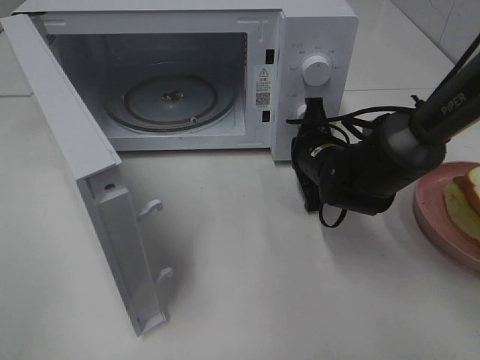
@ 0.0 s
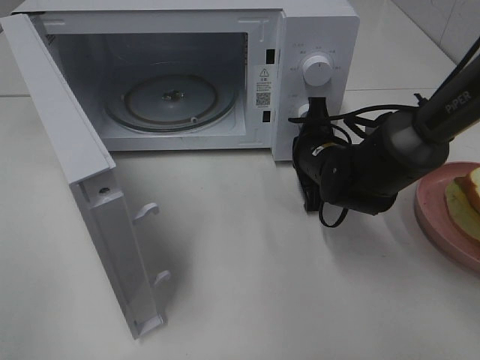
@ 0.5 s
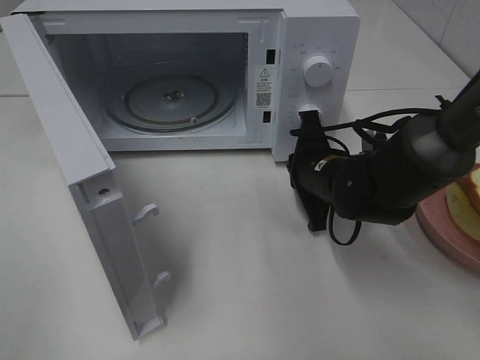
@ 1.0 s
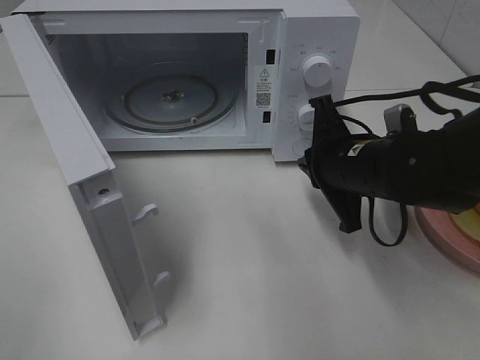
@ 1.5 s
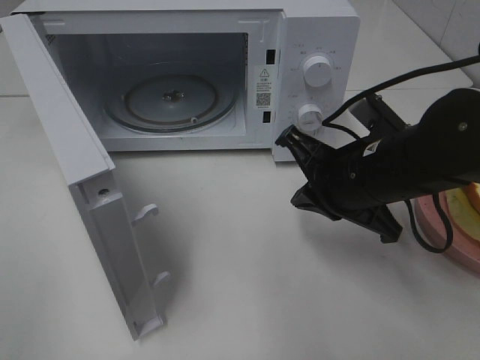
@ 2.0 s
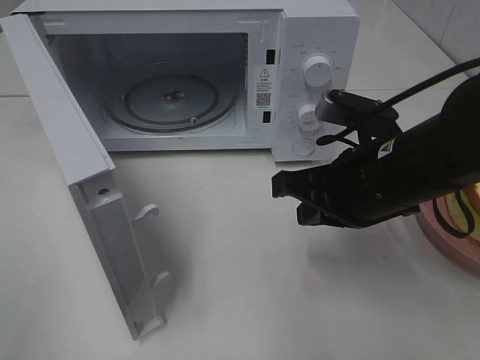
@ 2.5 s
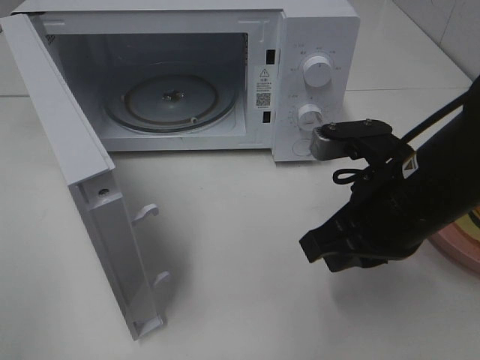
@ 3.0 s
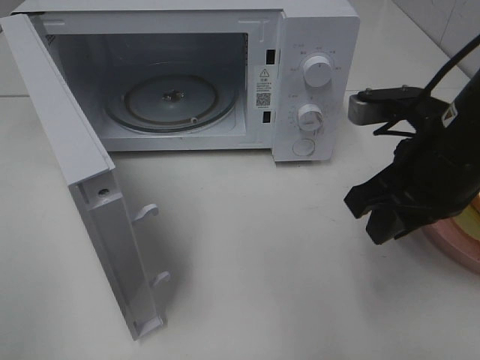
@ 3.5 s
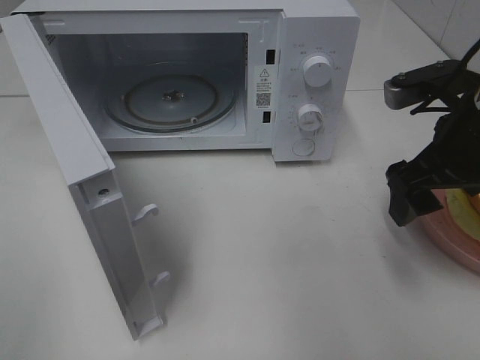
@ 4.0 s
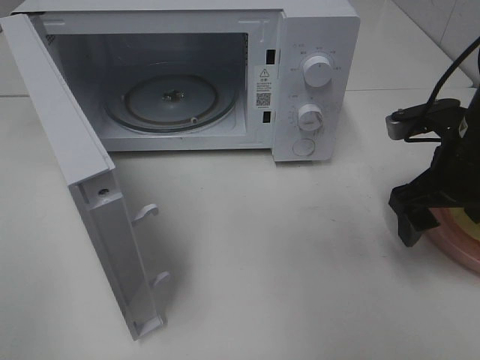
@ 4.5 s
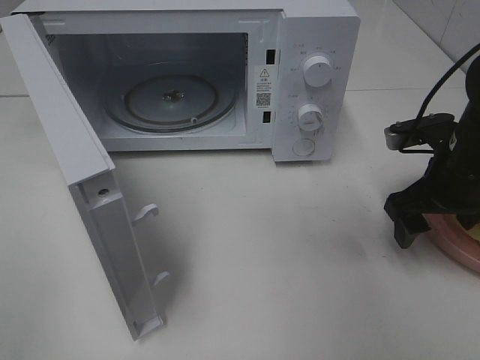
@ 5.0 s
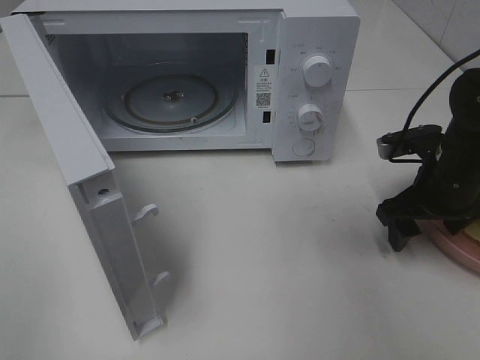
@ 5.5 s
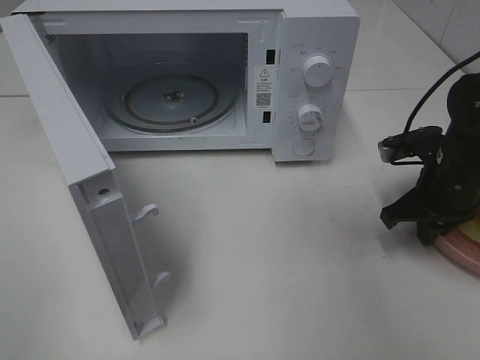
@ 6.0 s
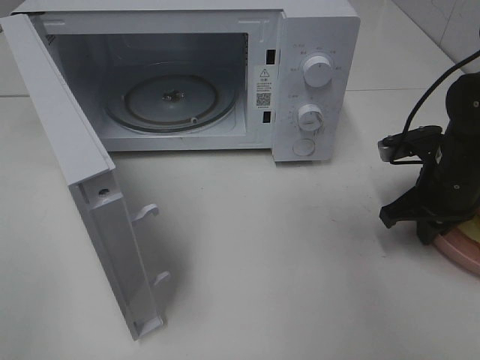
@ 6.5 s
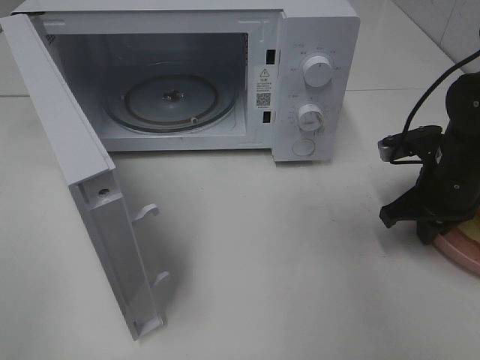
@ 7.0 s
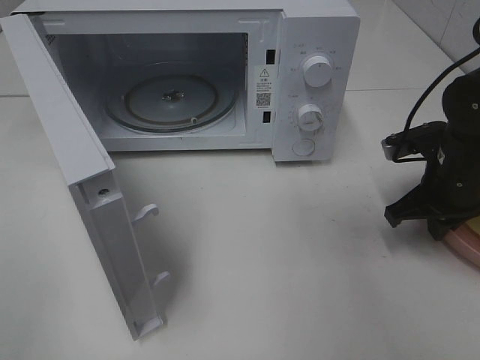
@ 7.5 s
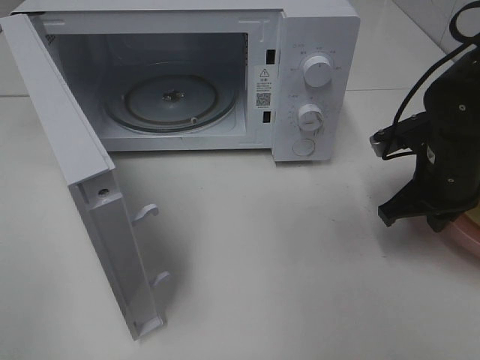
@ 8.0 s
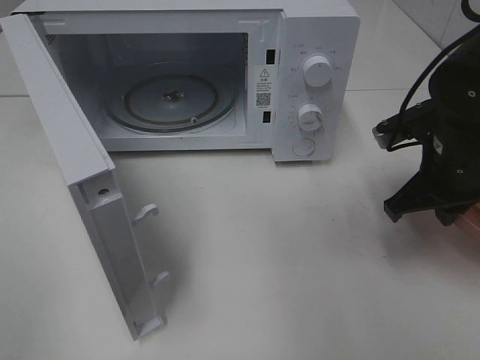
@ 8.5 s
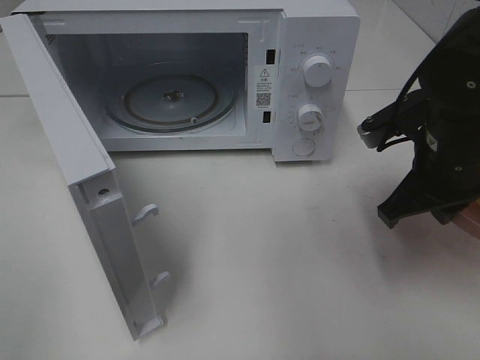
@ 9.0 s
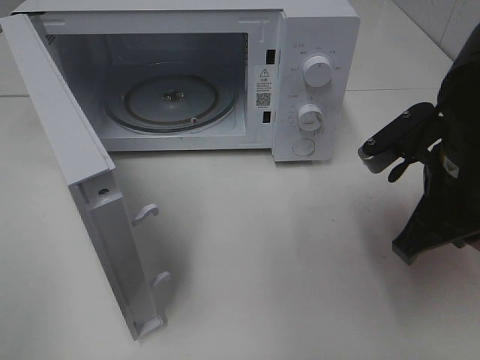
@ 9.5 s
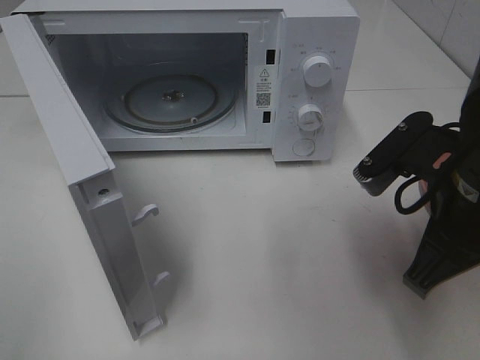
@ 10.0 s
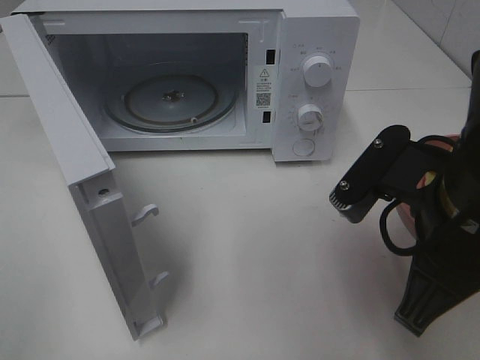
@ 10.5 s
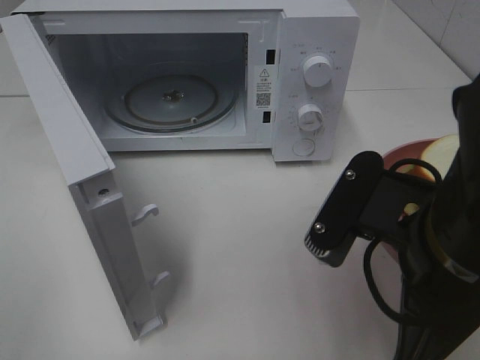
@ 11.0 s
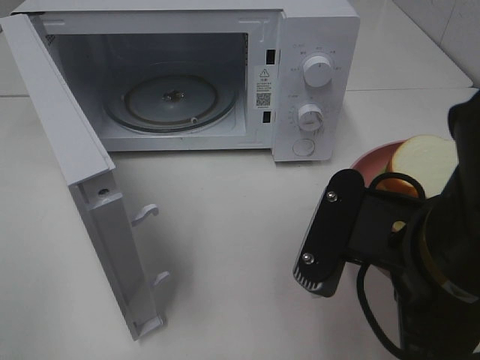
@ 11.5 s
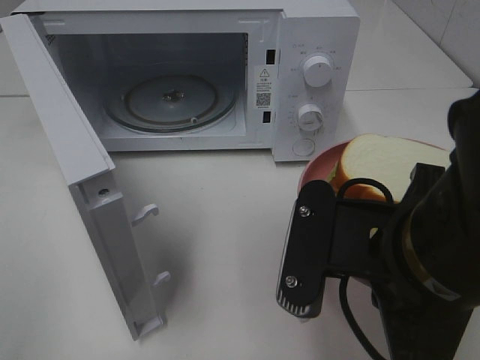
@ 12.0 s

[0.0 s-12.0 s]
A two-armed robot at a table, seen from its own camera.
Task of the whole recording: Heat Sandwich.
Step, 1.5 to 6.5 s: Right hand: grab the plate with the sandwich.
0.0 to 2.0 s: The right gripper shifts some 15 cm backward and upward.
2.0 to 4.0 s: The right gripper moves to the right and upward, about 10 cm, and opens.
4.0 to 6.0 s: The right gripper heads downward and forward, covering some 10 cm, and closes its fingers.
6.0 to 8.0 s: There are only small adjustments of the grippers.
8.0 to 10.0 s: The right gripper is displaced backward, upward and to the left by roughly 15 cm.
10.0 to 12.0 s: The right gripper travels backward and to the left by roughly 10 cm.

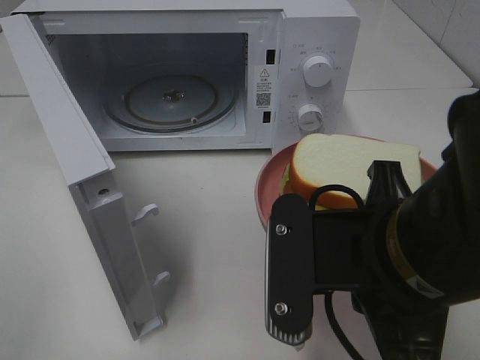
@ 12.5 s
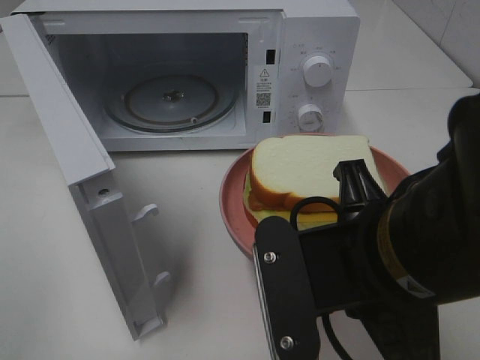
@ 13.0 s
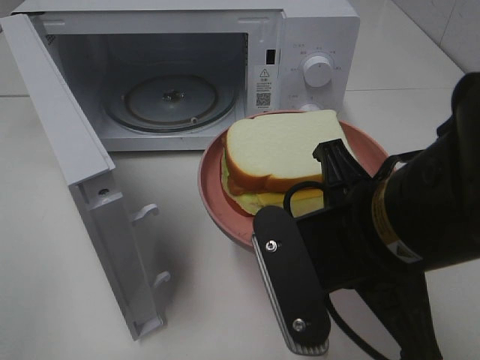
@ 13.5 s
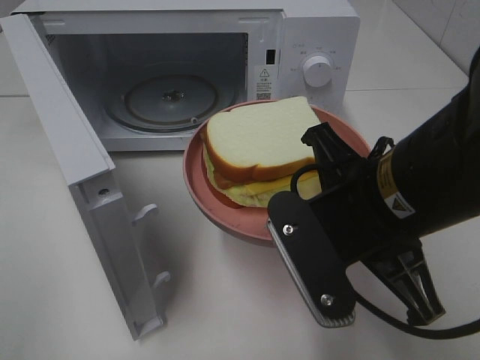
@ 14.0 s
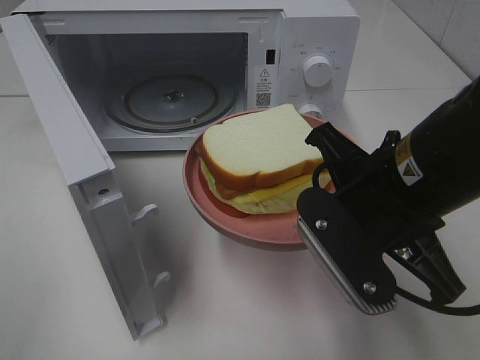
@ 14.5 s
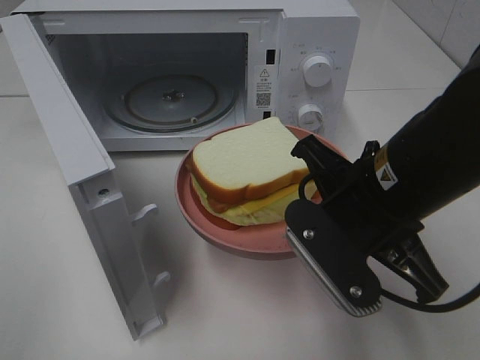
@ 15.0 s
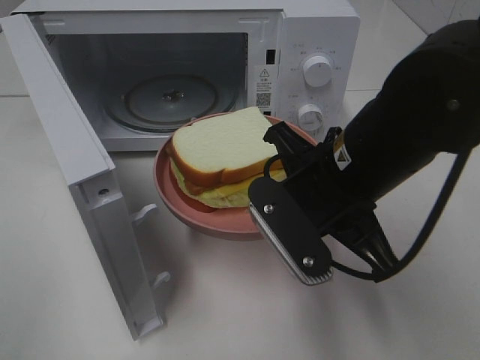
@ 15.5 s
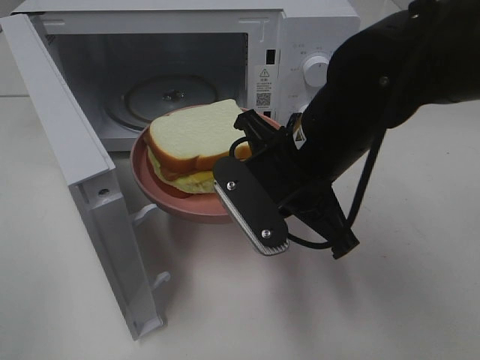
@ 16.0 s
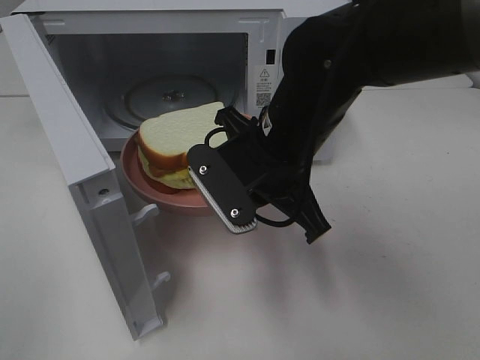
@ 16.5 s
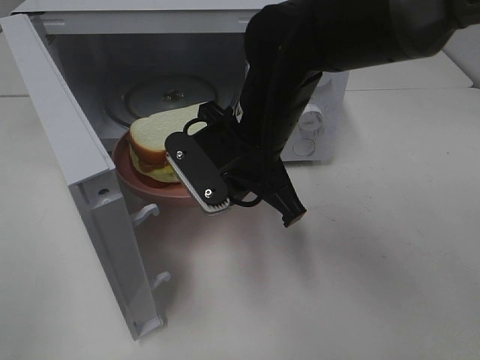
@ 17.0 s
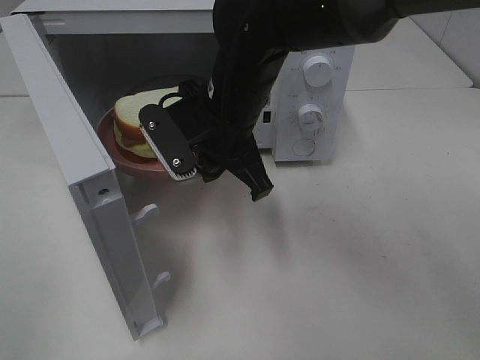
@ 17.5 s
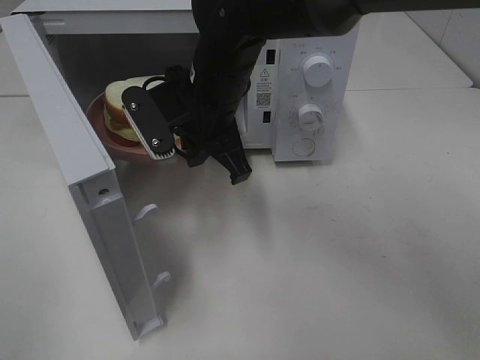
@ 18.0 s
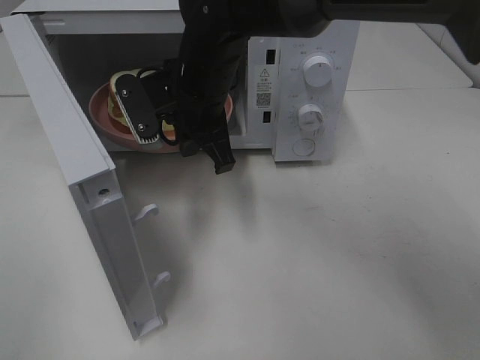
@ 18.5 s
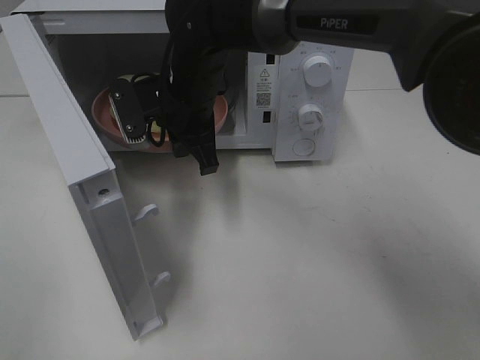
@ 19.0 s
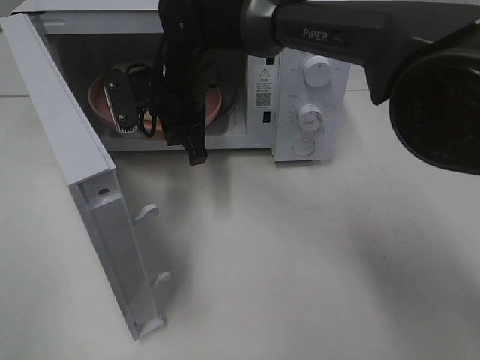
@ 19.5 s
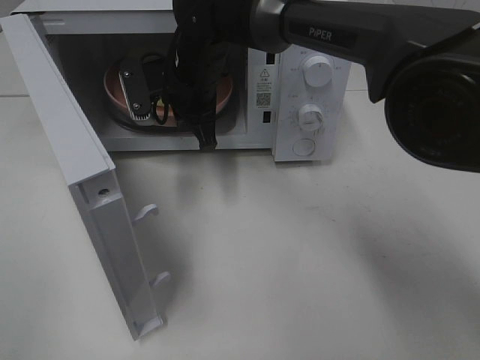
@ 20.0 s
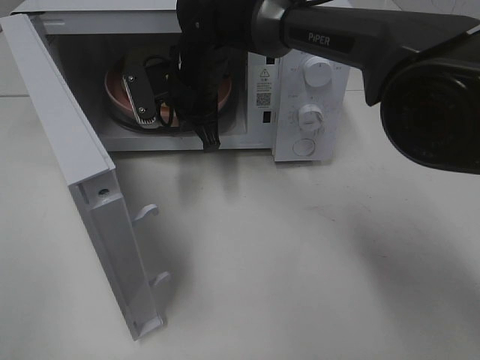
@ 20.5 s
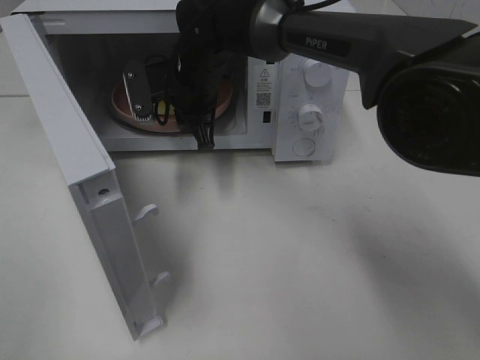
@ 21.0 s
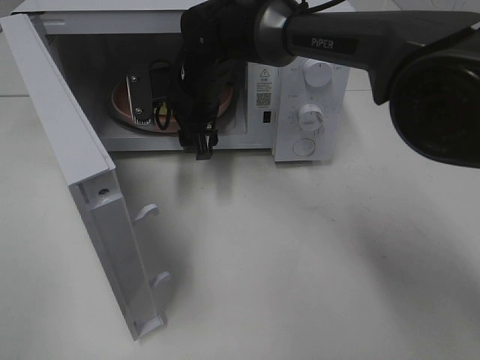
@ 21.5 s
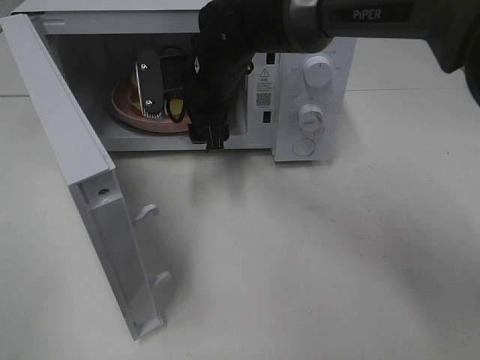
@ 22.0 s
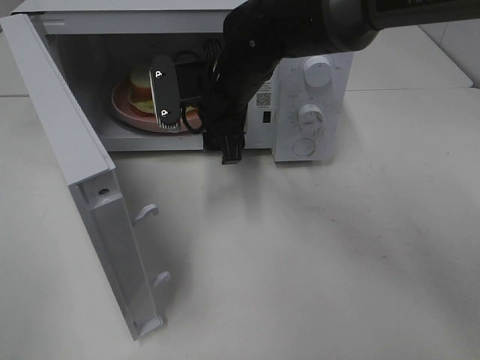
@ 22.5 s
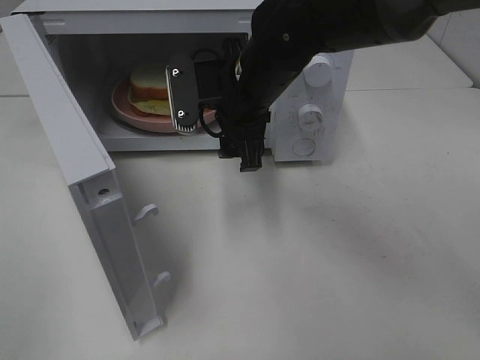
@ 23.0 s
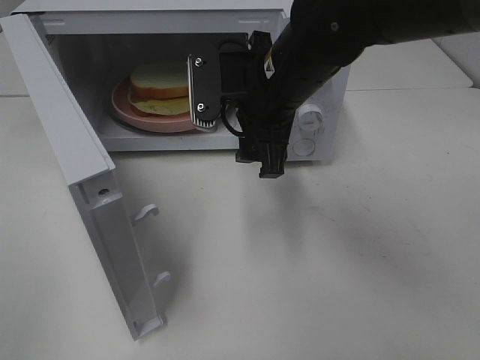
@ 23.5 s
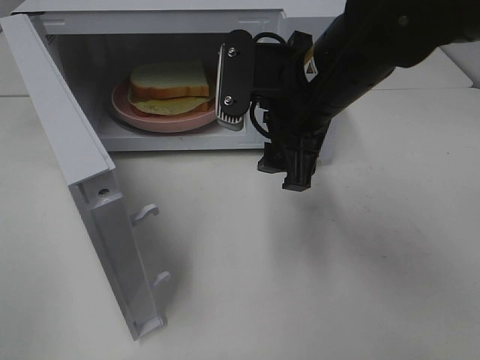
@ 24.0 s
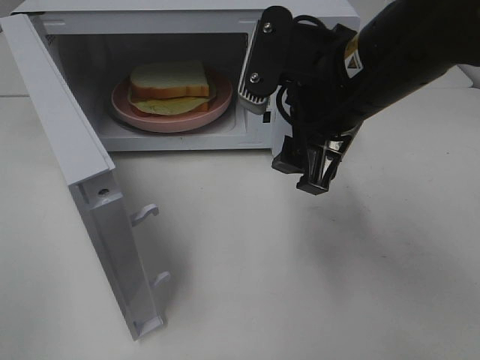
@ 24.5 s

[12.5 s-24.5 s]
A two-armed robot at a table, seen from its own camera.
Task of the whole recording: Heat Sandwich.
Step, 12.5 to 22.0 s: Right hand: place the plate in the microwave.
12.5 to 14.5 s: The right gripper shifts some 5 cm forward.
14.5 to 16.5 s: The right gripper travels forward and to the left by some 10 cm.
16.5 to 18.5 s: The right gripper shifts roughly 10 cm forward and to the left.
18.5 to 20.5 s: The right gripper heads forward, covering approximately 5 cm.
20.5 to 22.5 s: The right gripper moves backward, approximately 5 cm, and opens.
22.5 to 24.5 s: The right gripper travels backward, to the right and upward by roughly 15 cm.

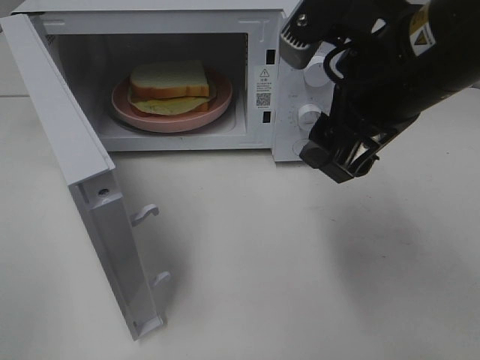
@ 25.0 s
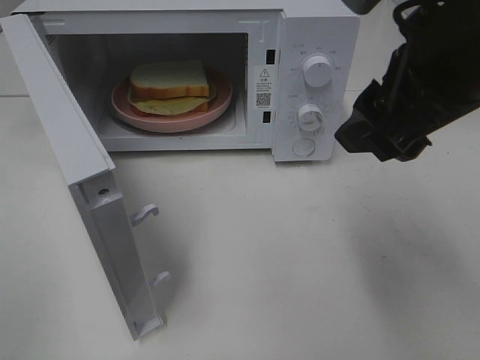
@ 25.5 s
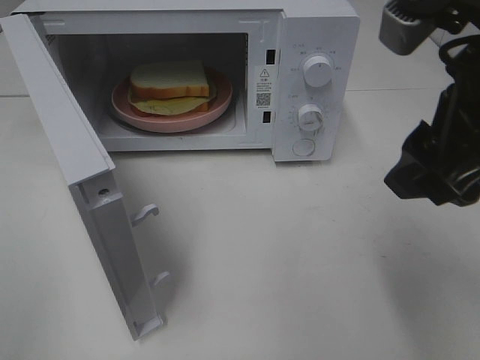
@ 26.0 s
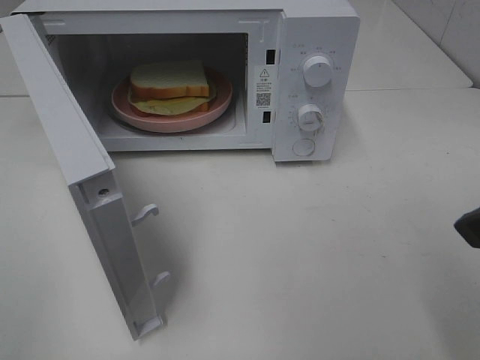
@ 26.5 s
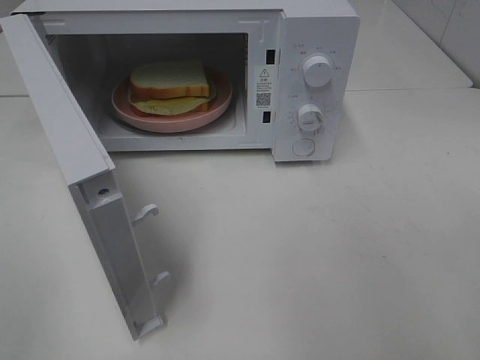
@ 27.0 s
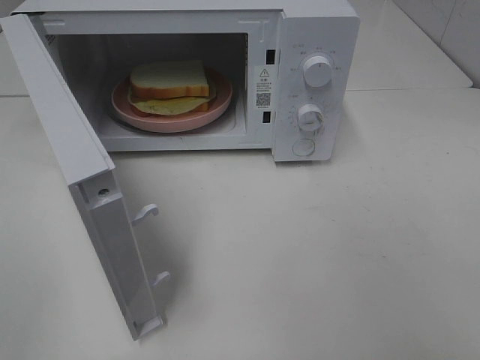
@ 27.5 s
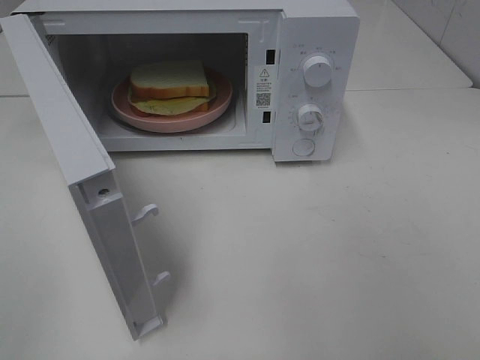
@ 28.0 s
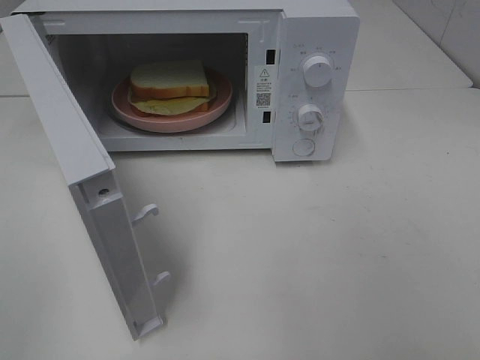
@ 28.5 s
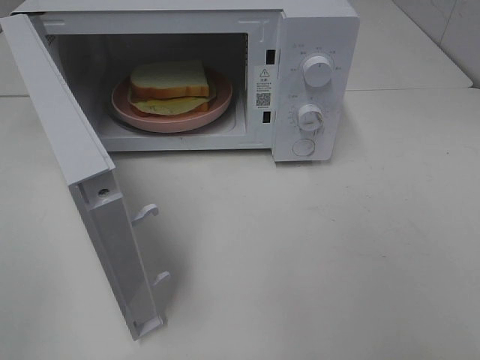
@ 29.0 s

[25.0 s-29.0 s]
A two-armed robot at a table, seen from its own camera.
Task of the whole recording: Heat Sandwich.
25.0 to 27.0 s: The right gripper travels backward and to the right by roughly 20 cm.
